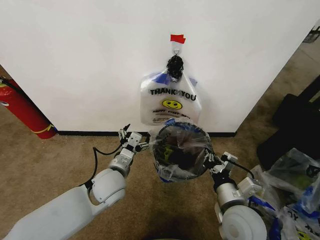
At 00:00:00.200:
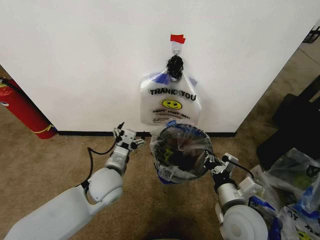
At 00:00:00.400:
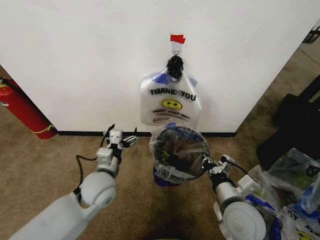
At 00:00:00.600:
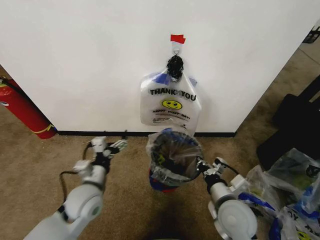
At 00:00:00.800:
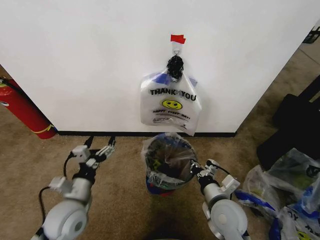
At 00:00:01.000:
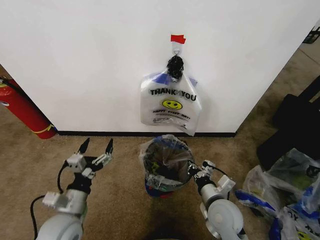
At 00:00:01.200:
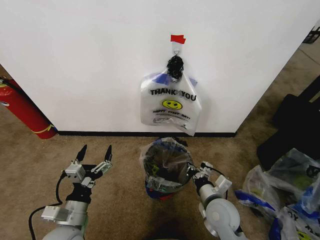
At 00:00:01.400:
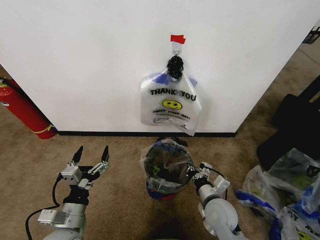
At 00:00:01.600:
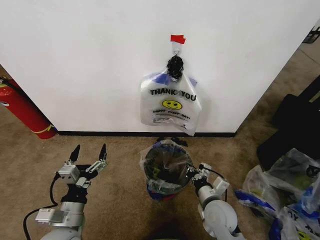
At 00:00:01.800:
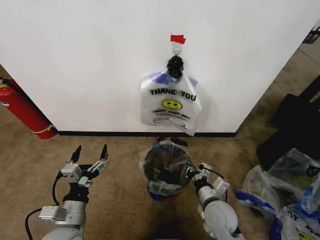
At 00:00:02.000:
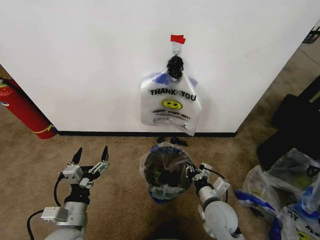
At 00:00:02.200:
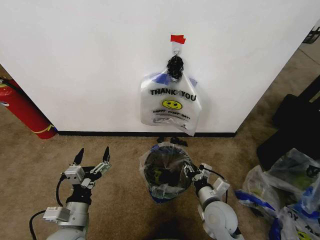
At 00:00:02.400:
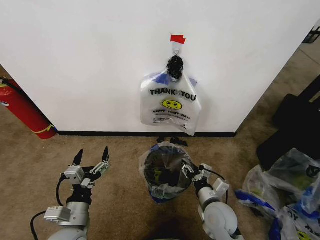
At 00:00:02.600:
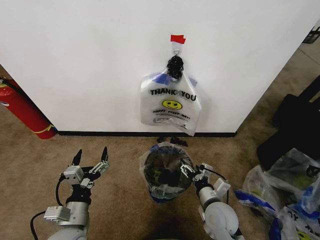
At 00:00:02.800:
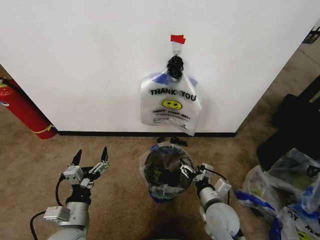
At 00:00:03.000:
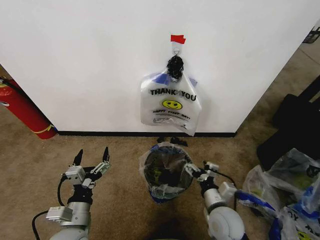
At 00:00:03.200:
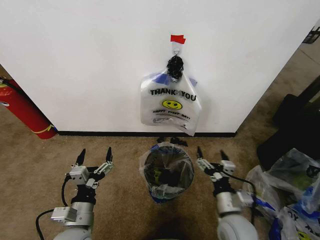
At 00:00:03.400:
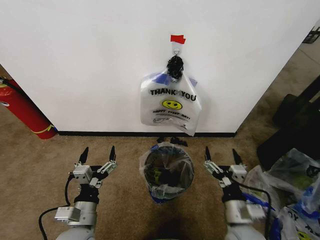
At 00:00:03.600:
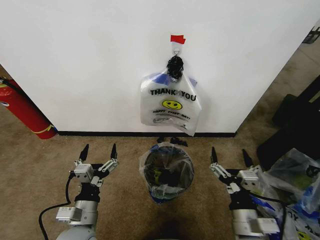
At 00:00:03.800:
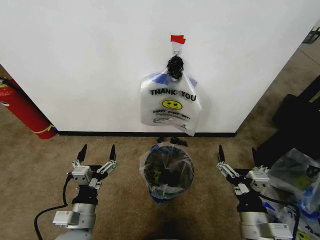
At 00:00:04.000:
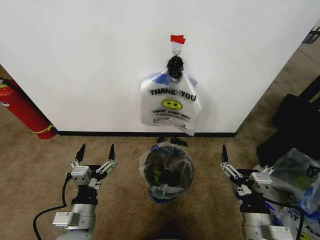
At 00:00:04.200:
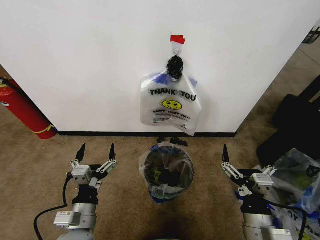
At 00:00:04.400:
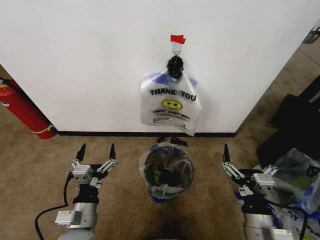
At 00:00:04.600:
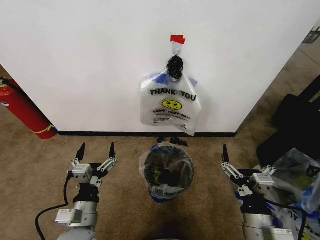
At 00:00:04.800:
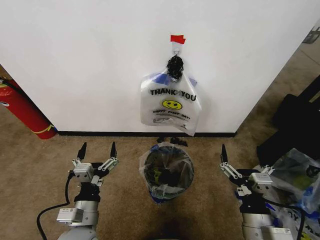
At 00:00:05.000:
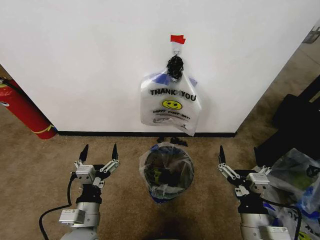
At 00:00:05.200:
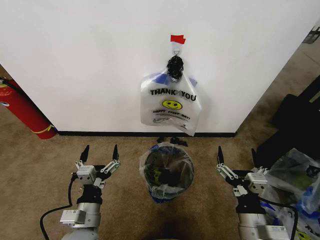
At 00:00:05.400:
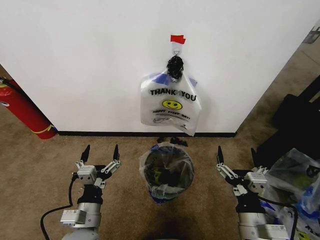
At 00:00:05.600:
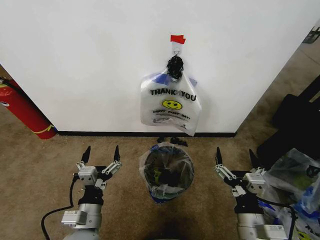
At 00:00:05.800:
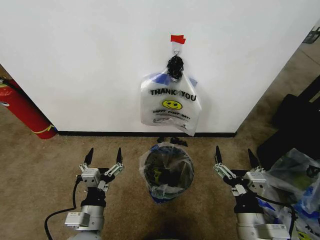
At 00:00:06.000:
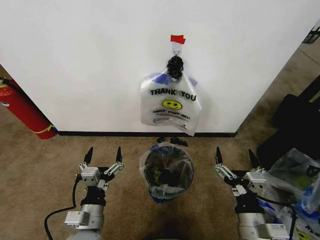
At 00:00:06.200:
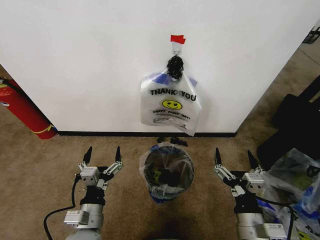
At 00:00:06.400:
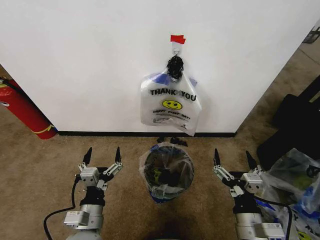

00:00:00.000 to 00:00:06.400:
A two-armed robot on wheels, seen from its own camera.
Task of the whole recording: Pick up the garbage bag from the wall and place it over the trash bin.
00:00:00.000 to 00:00:01.600: The left gripper shifts roughly 15 cm backward and to the left, while the right gripper shifts some 10 cm downward.
00:00:01.600 to 00:00:03.200: The right gripper changes place by roughly 5 cm, and opens up.
00:00:03.200 to 00:00:04.800: The right gripper shifts roughly 10 cm backward and upward.
00:00:04.800 to 00:00:06.400: The grippers move only a little.
